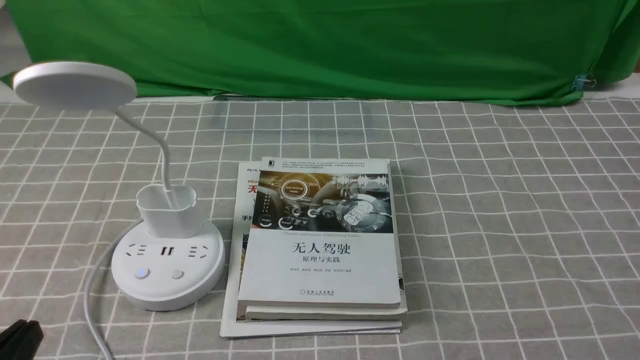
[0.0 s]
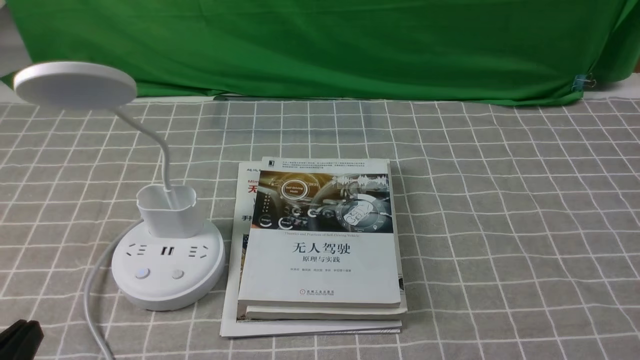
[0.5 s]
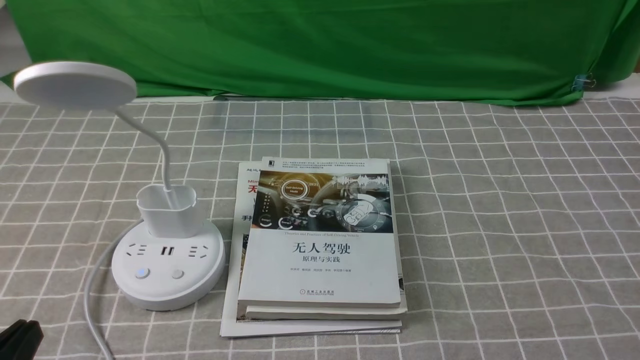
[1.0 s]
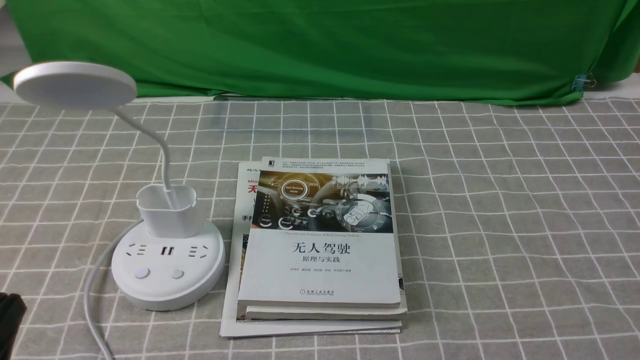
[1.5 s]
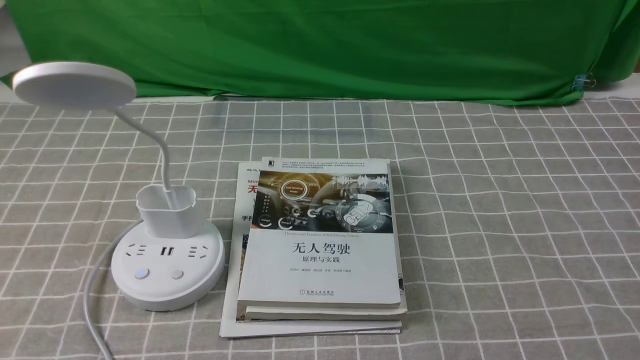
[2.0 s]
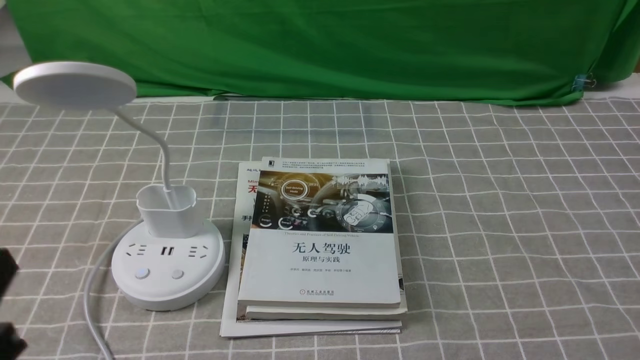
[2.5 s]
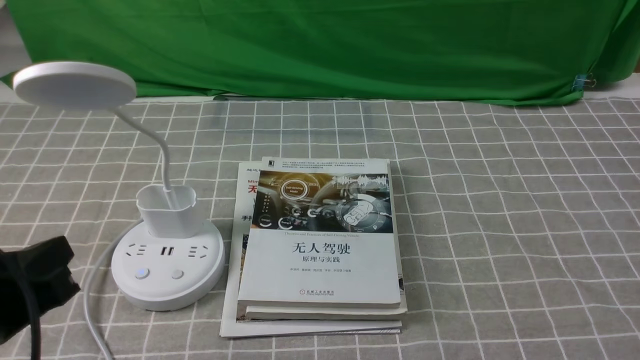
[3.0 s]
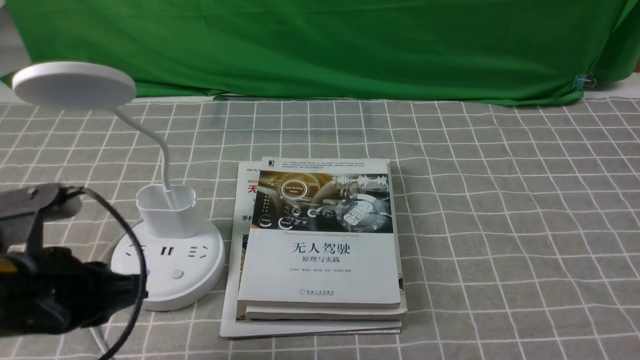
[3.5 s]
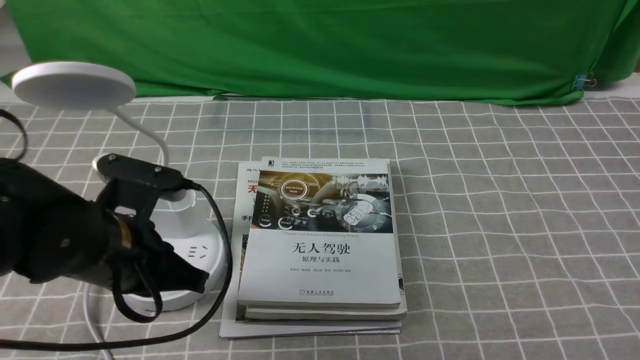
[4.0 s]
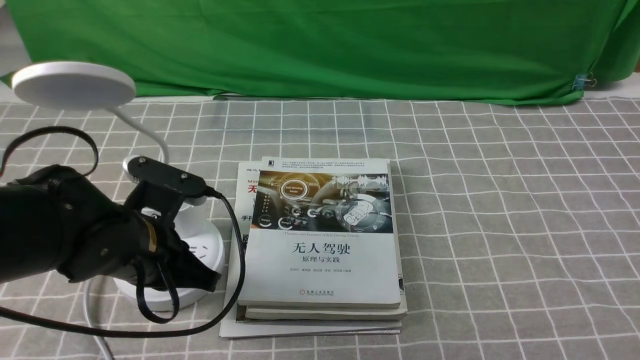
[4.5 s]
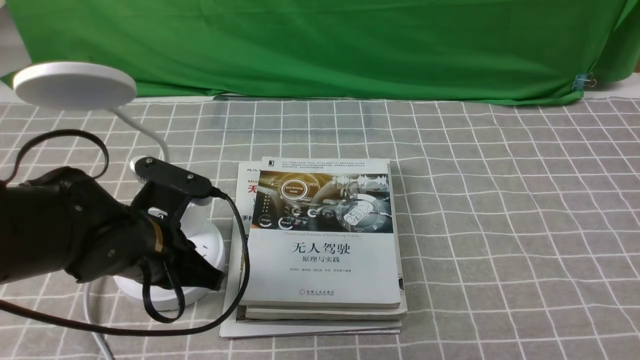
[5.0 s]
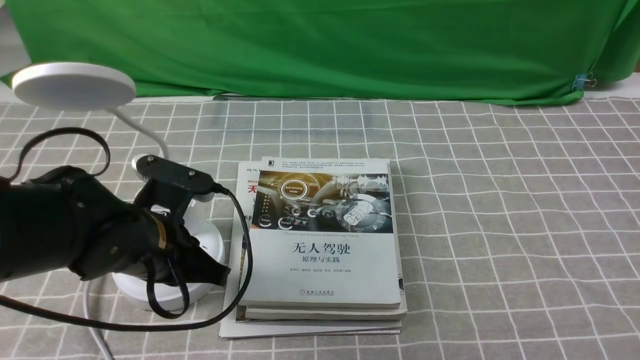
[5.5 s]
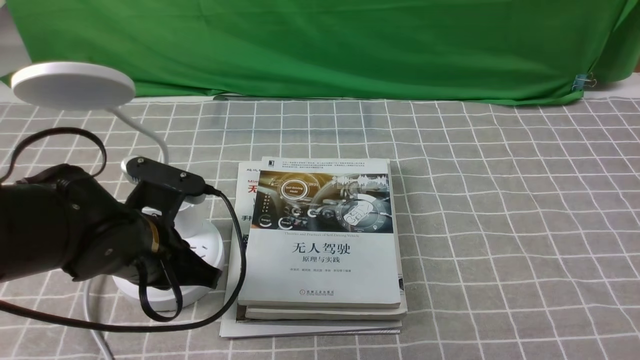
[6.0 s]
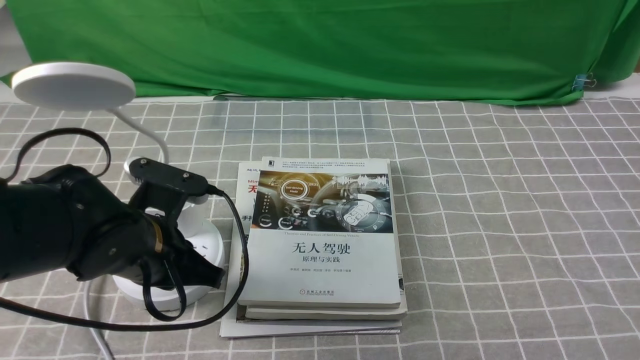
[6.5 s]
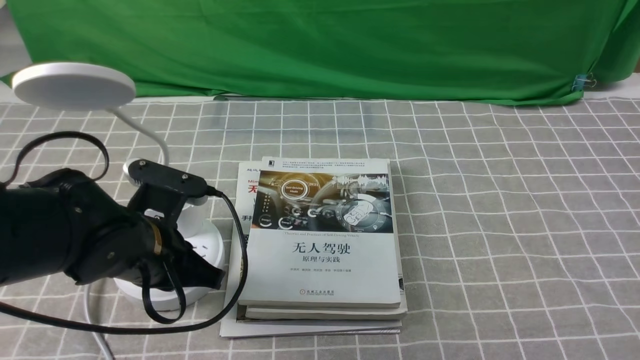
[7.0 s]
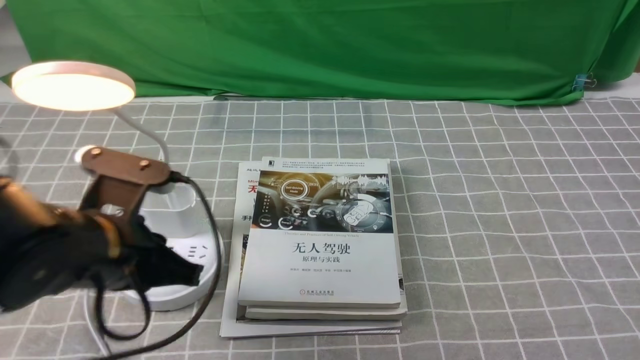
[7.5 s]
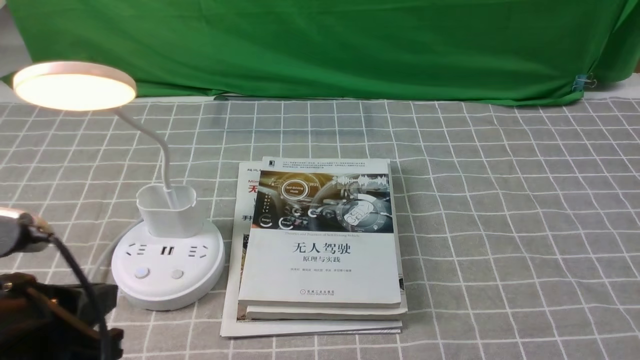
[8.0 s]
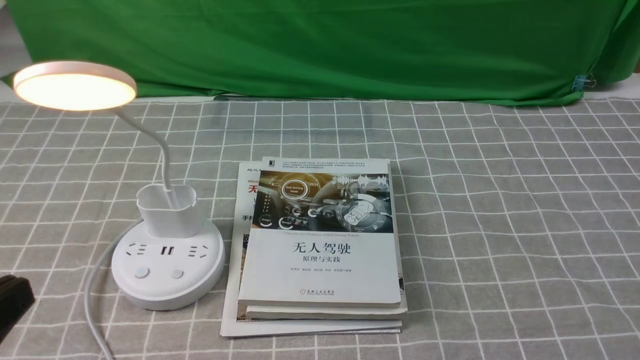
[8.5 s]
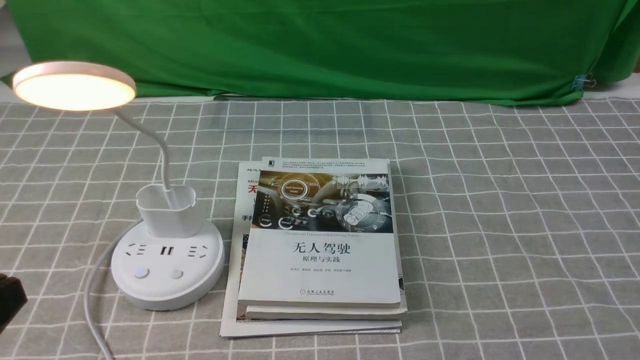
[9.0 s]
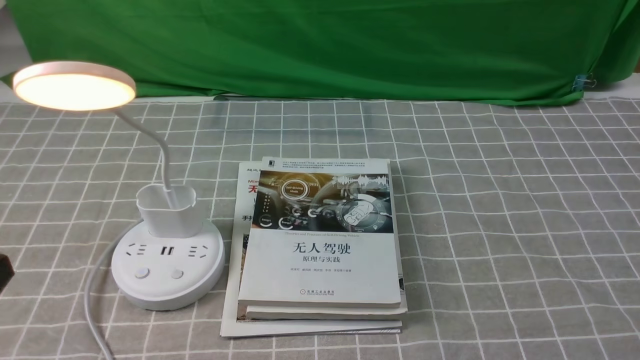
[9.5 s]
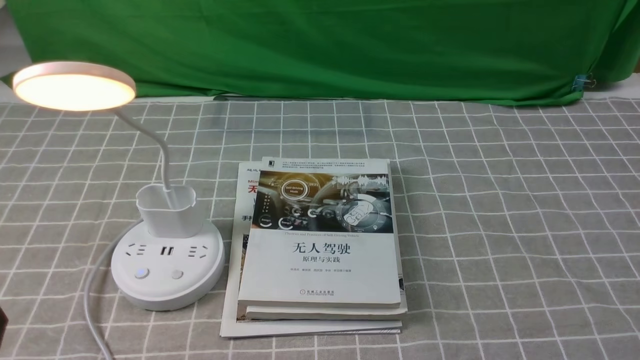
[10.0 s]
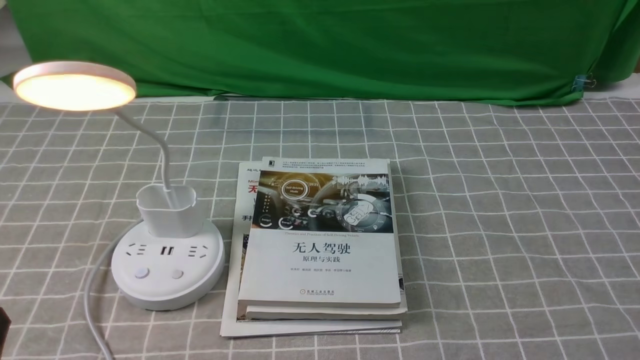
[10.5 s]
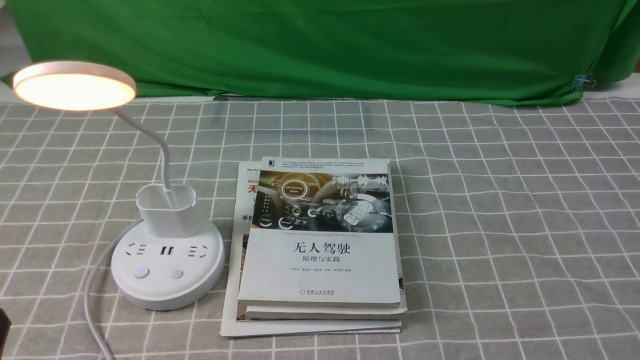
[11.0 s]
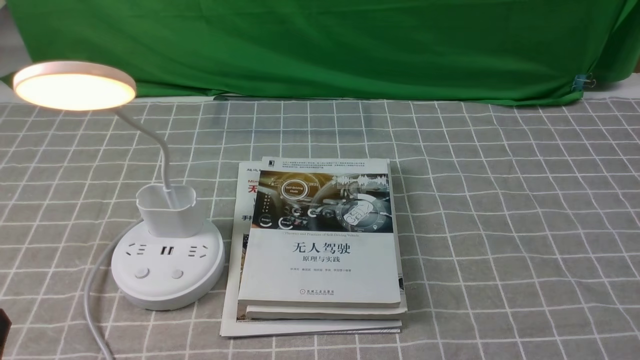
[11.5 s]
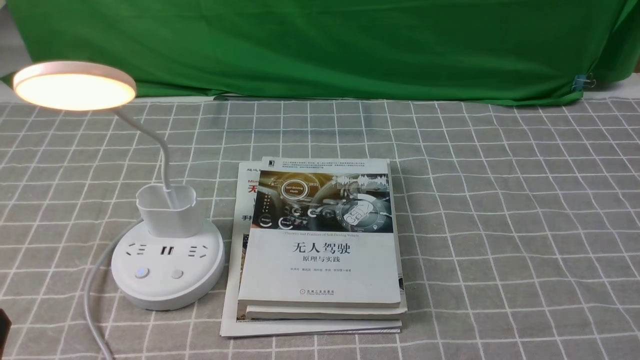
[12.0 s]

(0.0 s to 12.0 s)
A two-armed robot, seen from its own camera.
Step, 0.0 s - 7.0 s: use the left arm to press the button switch on the lamp holder.
2.0 s - 4.0 s: The left gripper goes about 20 cm forward.
4.0 s - 6.0 s: The left gripper moves about 5 cm.
6.0 s - 8.0 s: The left gripper is displaced backward and upward by roughly 15 cm.
8.0 s - 10.0 s: The left gripper is displaced backward and to the left by some 10 cm.

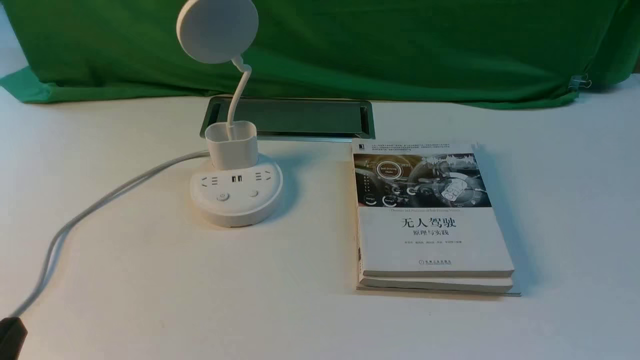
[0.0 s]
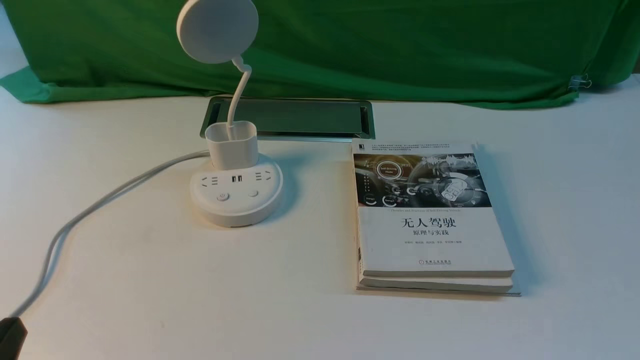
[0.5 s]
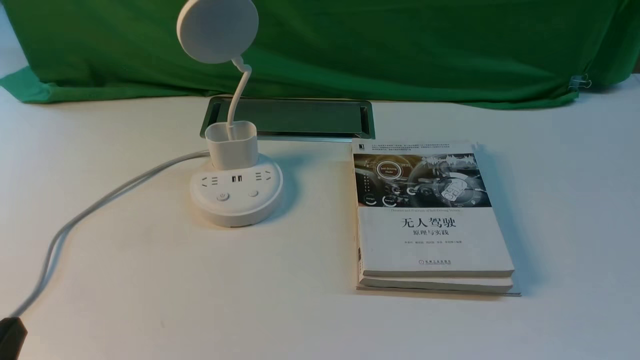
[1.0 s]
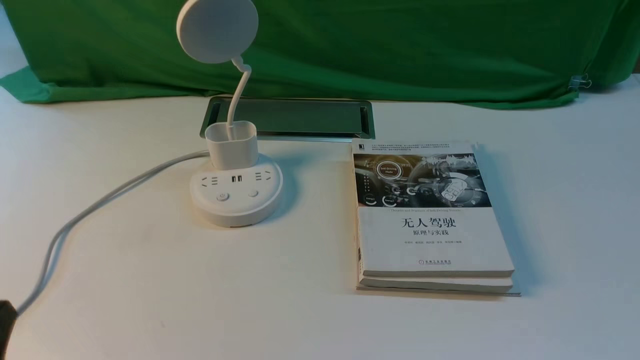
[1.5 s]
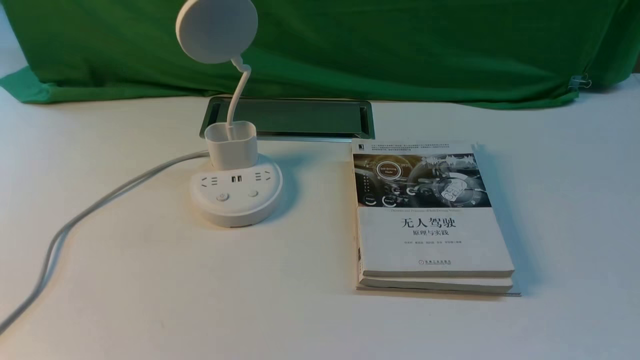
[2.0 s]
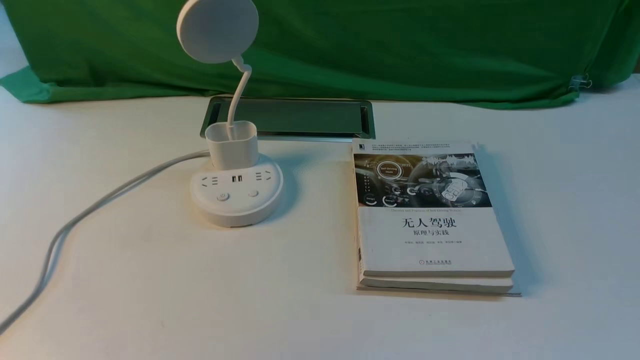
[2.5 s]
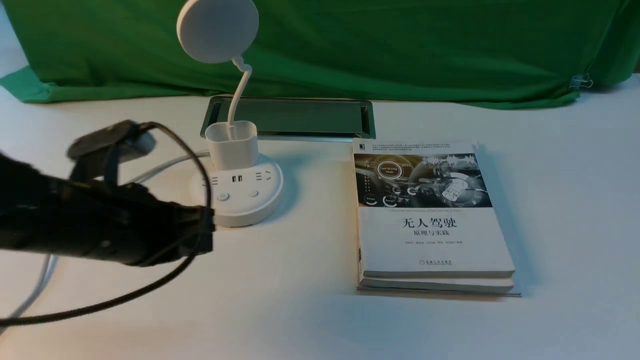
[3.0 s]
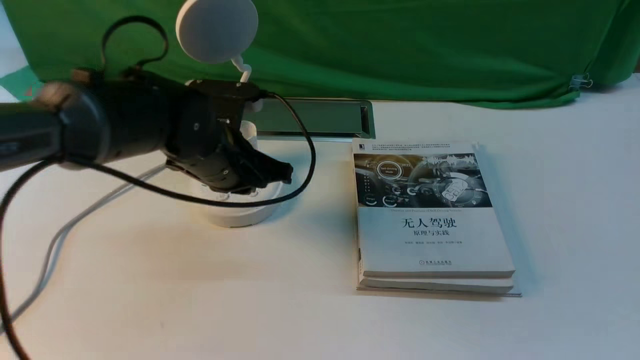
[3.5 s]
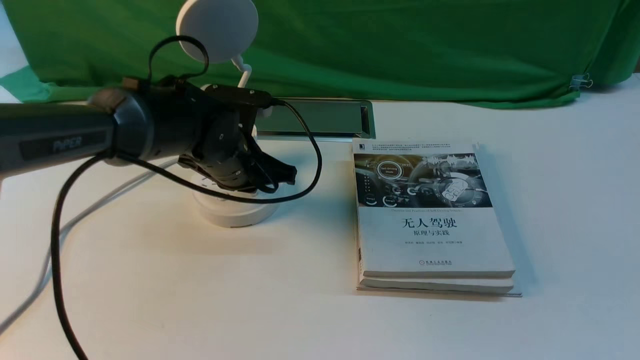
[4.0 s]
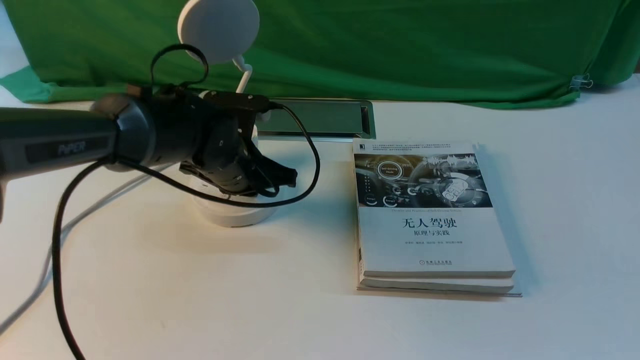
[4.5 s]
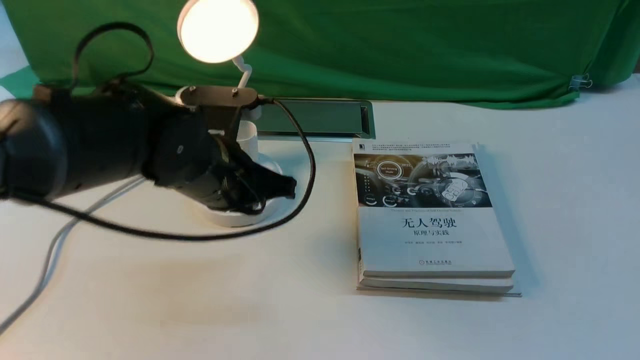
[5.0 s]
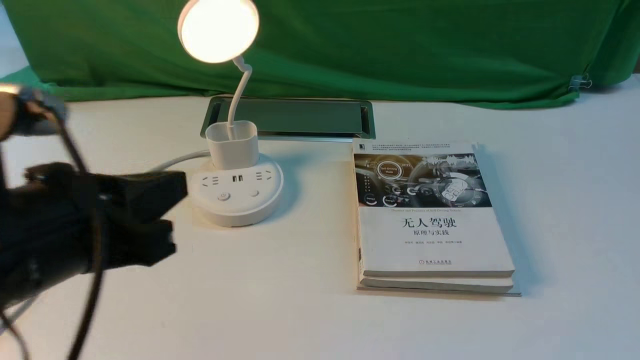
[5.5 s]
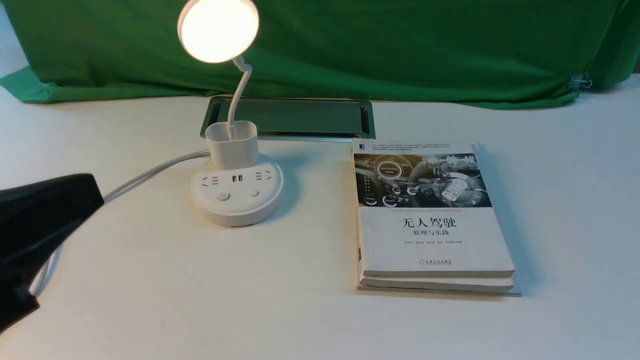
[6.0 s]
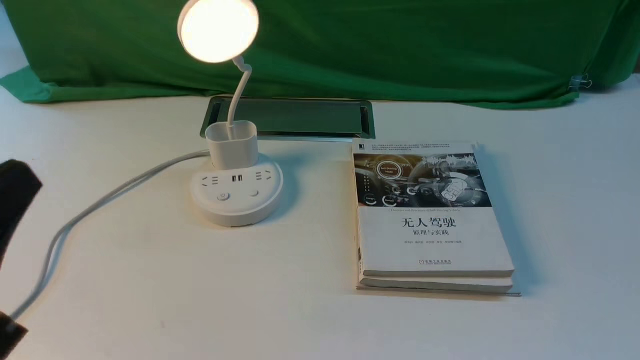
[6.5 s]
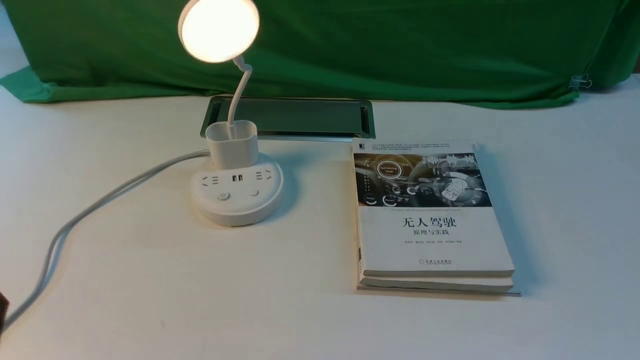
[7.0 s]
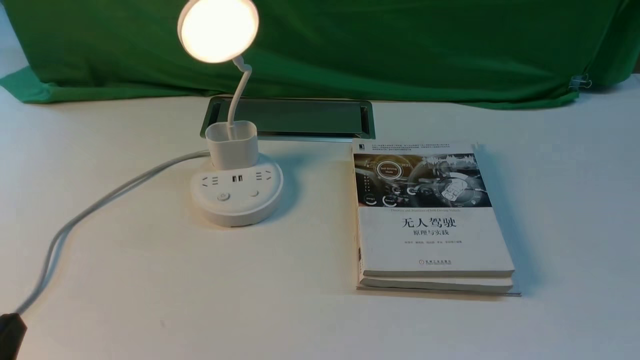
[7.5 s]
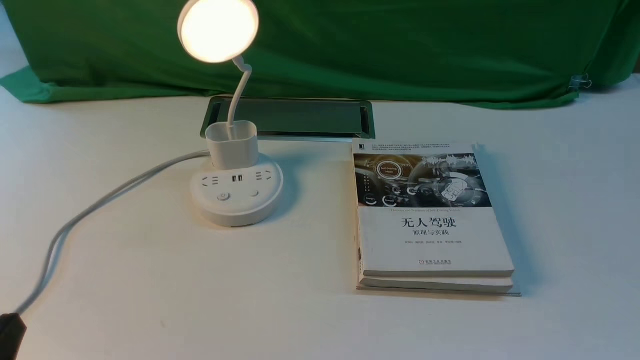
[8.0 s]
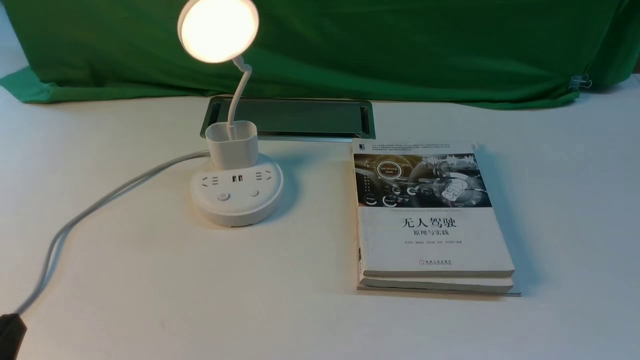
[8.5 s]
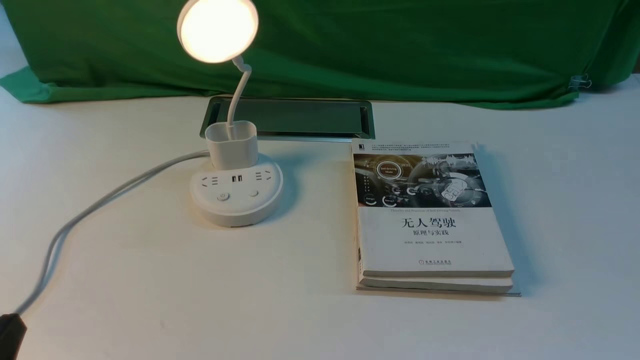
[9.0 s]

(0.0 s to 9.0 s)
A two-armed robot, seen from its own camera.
Step, 0.0 s - 4.5 s: use the left arm to press the button switch on the lamp holder.
2.0 s - 4.5 s: The left gripper heads forward and to the right, covering roughly 40 cm.
4.5 s - 7.0 s: The left gripper goes roughly 35 cm backward and to the left.
